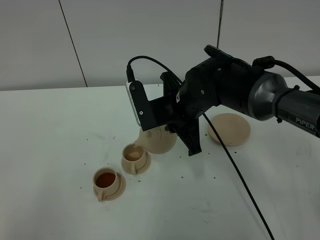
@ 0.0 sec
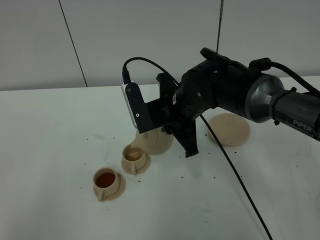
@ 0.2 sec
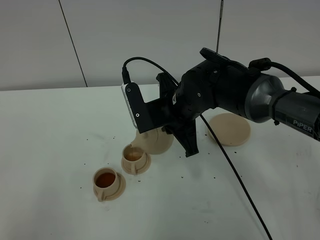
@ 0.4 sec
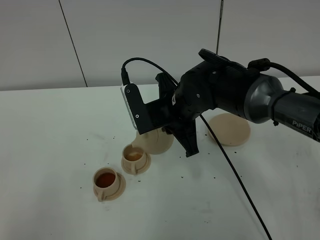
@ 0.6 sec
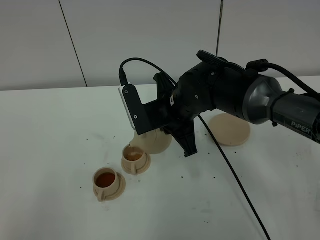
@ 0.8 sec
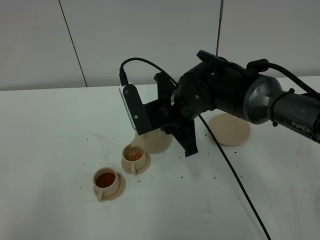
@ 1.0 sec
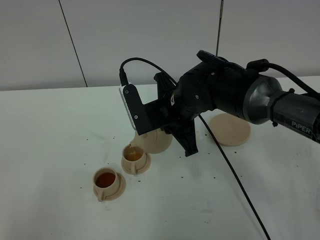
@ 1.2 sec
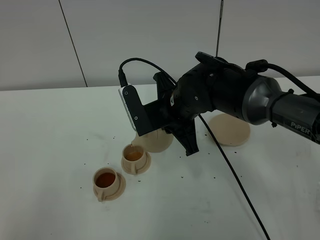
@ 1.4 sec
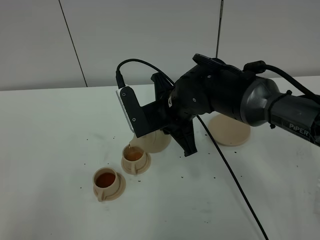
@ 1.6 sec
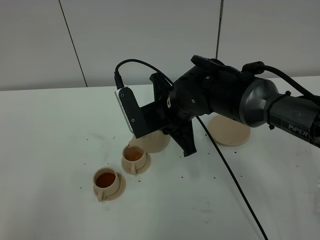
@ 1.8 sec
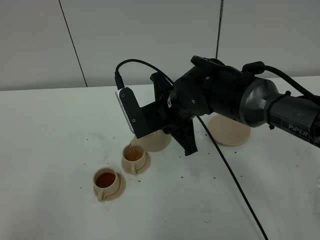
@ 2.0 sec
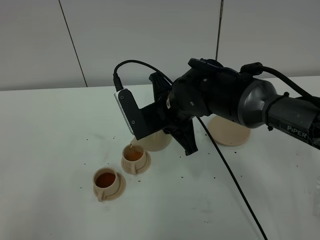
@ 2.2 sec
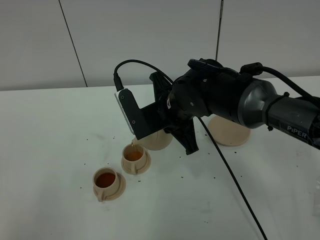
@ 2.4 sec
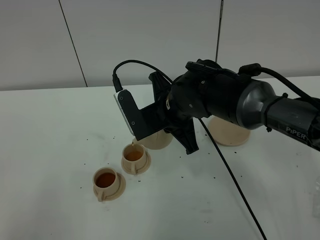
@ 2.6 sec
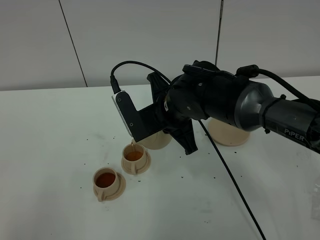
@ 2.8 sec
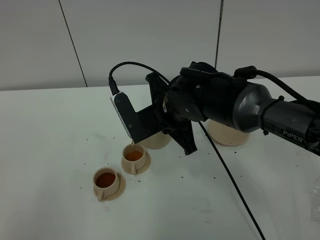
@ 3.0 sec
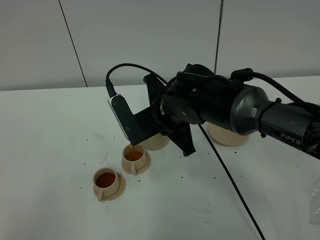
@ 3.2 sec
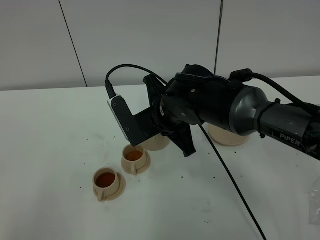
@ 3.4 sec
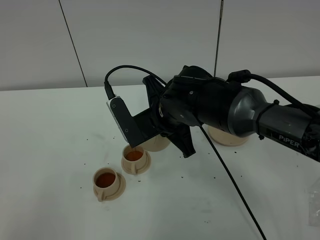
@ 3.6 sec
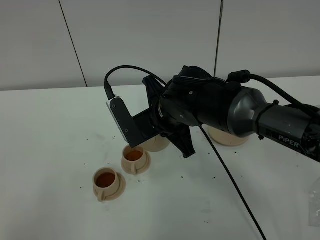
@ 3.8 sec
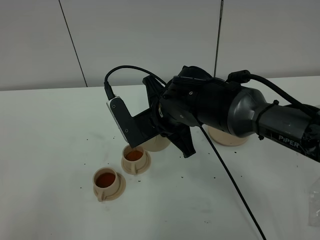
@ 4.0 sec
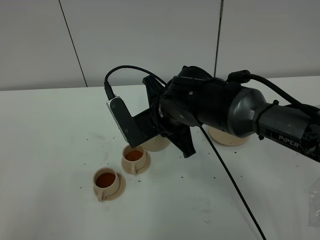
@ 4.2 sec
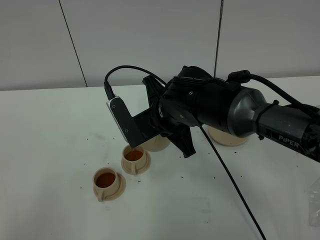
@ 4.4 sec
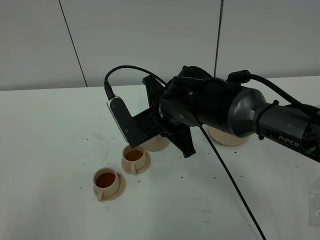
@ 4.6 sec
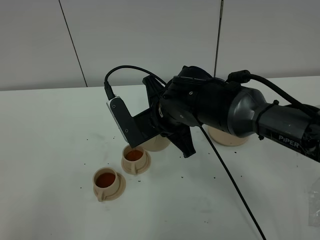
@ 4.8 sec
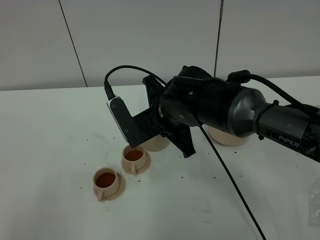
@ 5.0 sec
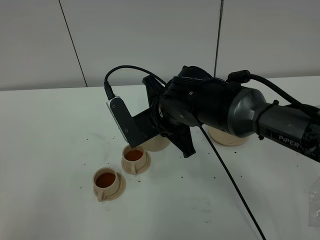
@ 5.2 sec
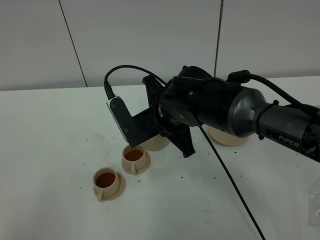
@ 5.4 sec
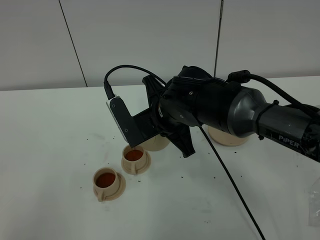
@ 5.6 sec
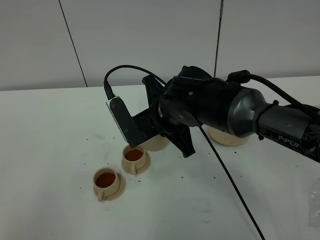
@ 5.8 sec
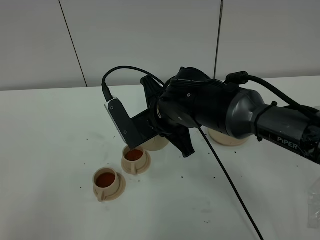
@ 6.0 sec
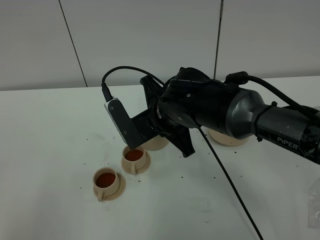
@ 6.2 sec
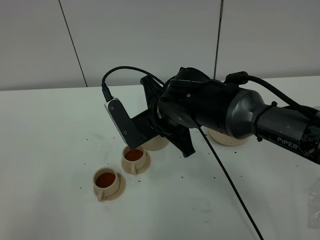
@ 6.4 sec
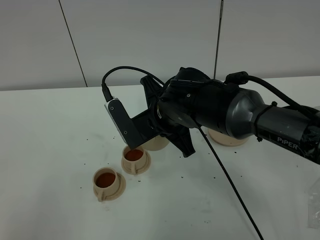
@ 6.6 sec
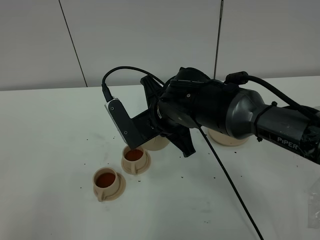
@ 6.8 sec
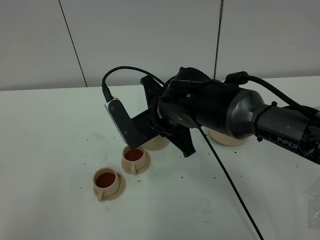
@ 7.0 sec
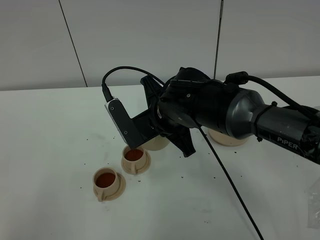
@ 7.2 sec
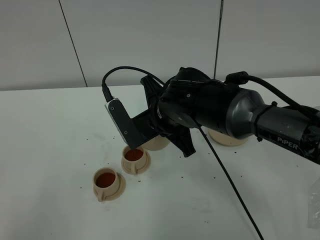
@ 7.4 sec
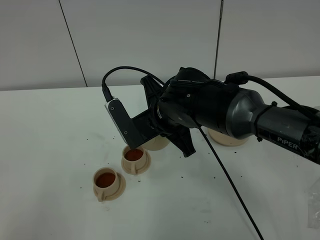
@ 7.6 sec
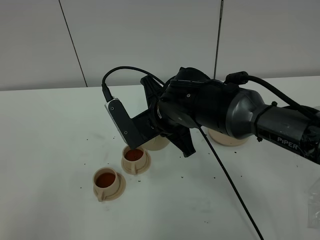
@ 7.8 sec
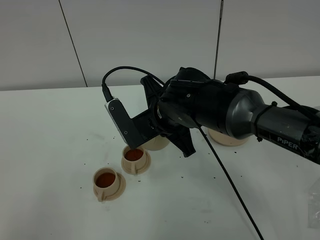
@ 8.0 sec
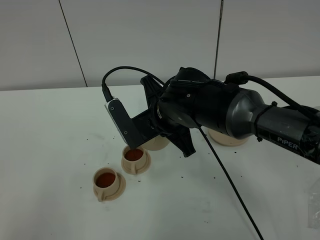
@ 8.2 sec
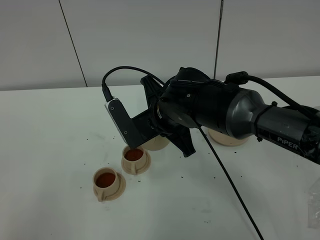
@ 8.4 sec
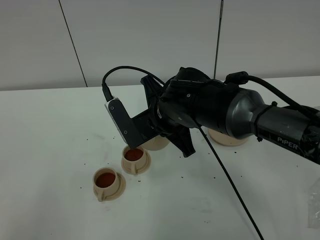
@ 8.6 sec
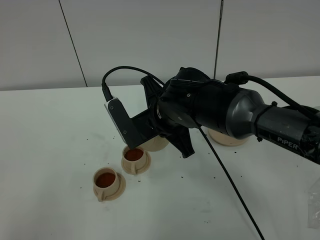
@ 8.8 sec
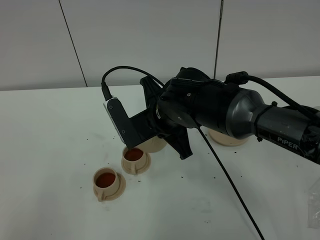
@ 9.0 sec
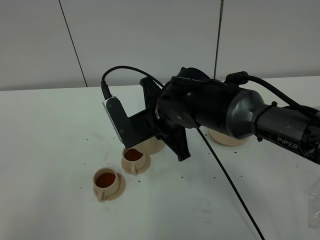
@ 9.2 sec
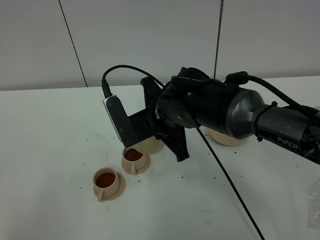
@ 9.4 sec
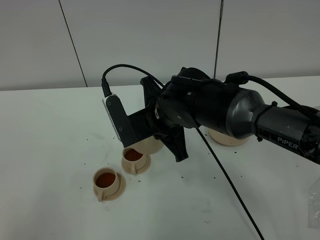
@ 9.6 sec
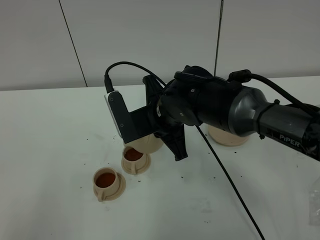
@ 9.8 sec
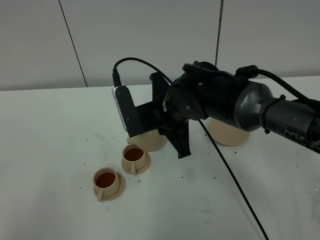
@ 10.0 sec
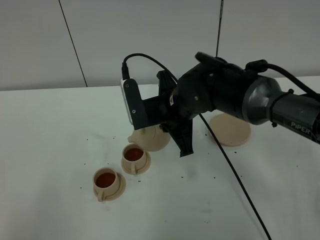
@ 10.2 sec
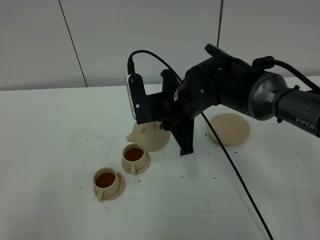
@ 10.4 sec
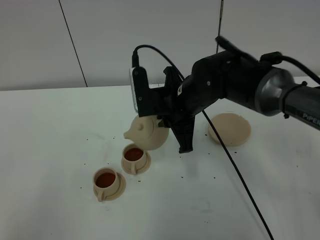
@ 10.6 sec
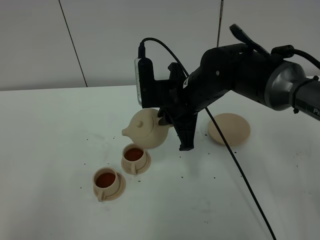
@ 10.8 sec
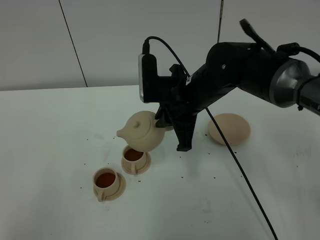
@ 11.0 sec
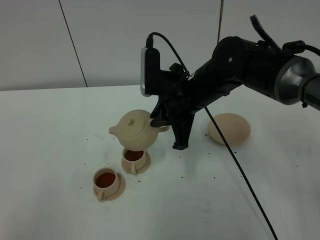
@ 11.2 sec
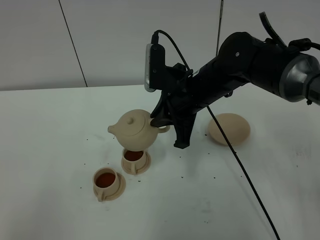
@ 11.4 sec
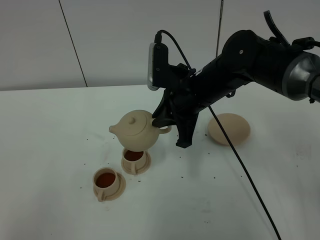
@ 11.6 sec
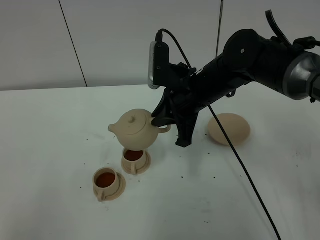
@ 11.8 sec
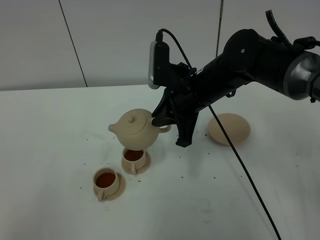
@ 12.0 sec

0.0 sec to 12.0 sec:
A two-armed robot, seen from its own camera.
Task of the whole recording: grasp the brown teapot and pour the tea into the two brown teacups one by one, put the brown teapot back in its original place.
Step, 0.0 sec to 9.2 sec: Pour tea into the teacup with the right gripper.
0.0 sec to 3.0 sec: The grippers stay close to where they were, moving slightly.
3.0 sec to 9.0 sec: Both grippers stay about where they are.
9.0 sec to 10.4 sec: The grippers make only small movements.

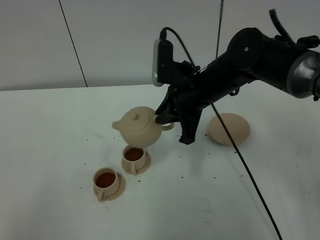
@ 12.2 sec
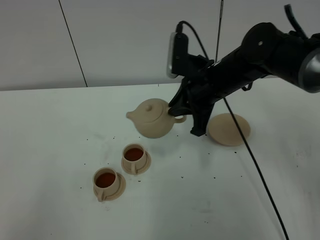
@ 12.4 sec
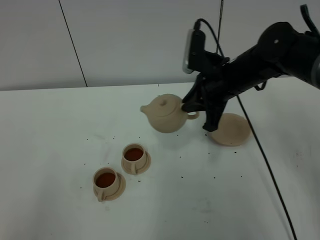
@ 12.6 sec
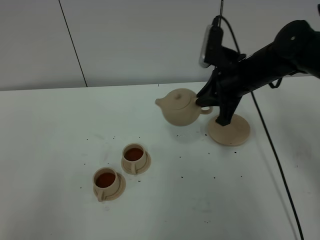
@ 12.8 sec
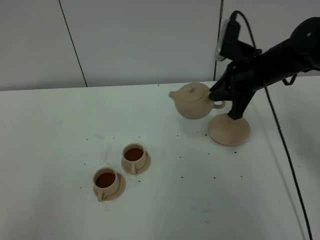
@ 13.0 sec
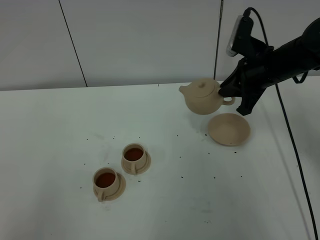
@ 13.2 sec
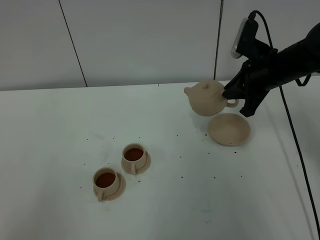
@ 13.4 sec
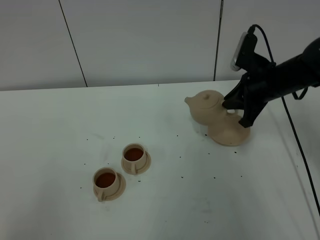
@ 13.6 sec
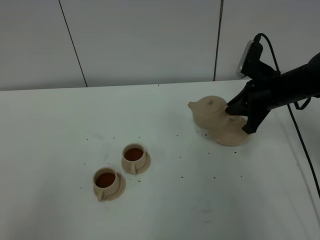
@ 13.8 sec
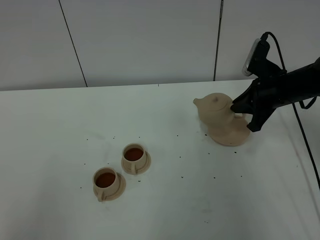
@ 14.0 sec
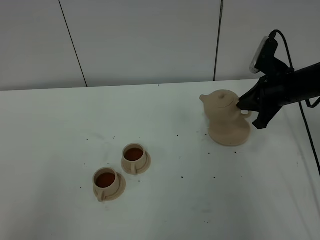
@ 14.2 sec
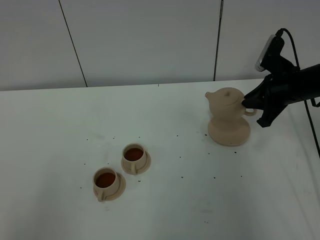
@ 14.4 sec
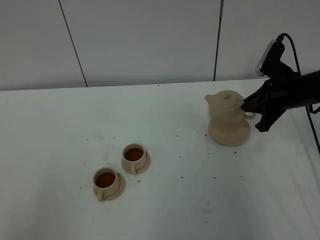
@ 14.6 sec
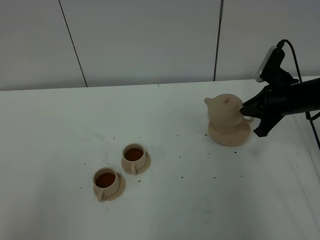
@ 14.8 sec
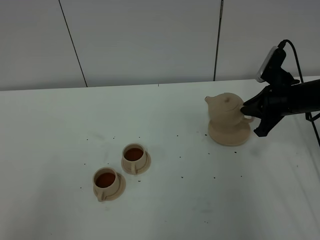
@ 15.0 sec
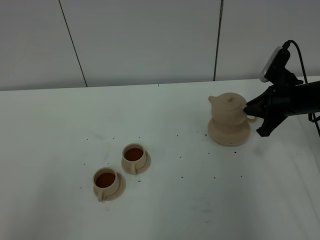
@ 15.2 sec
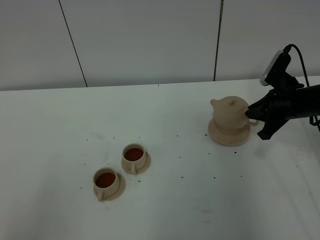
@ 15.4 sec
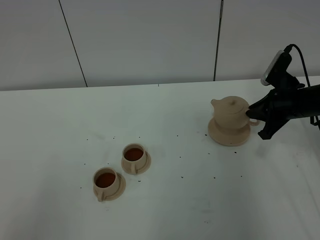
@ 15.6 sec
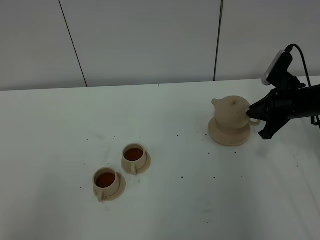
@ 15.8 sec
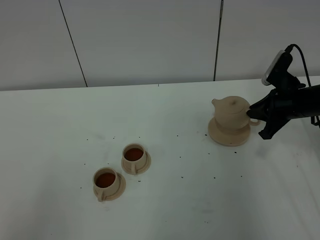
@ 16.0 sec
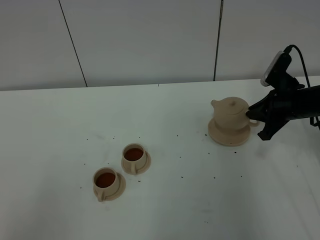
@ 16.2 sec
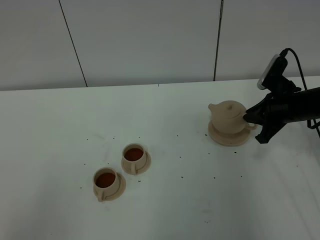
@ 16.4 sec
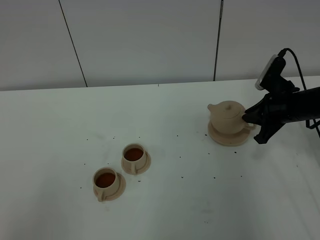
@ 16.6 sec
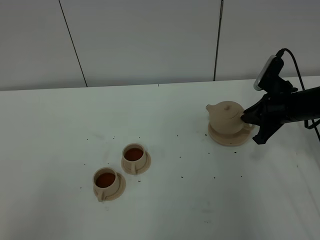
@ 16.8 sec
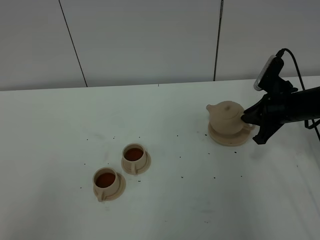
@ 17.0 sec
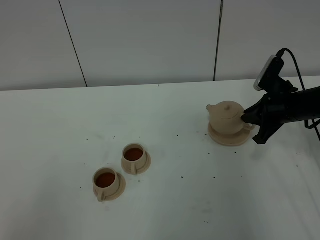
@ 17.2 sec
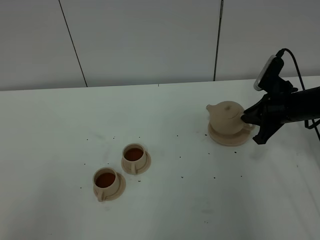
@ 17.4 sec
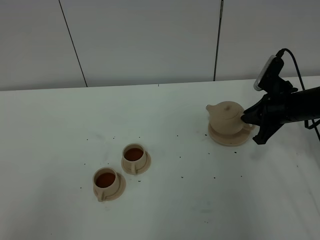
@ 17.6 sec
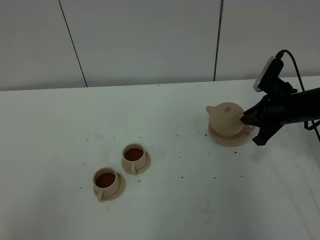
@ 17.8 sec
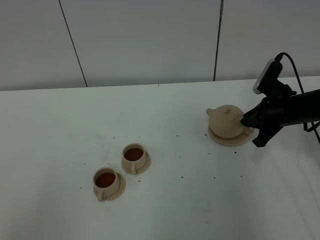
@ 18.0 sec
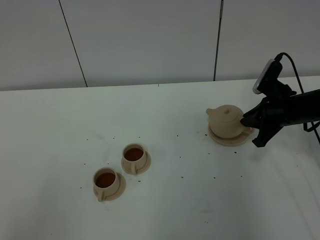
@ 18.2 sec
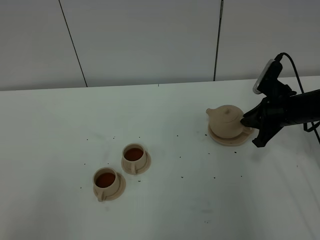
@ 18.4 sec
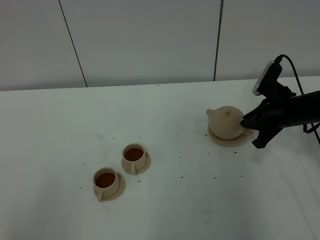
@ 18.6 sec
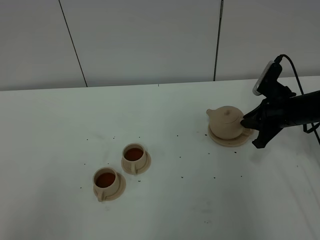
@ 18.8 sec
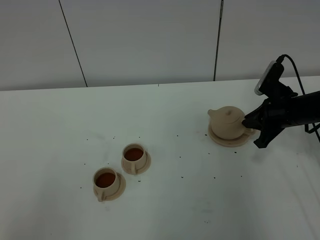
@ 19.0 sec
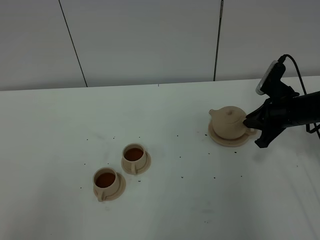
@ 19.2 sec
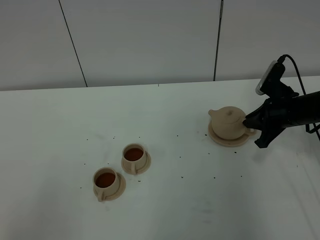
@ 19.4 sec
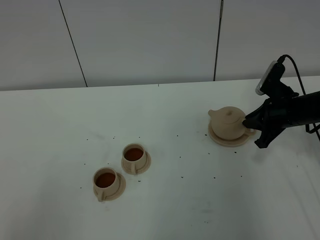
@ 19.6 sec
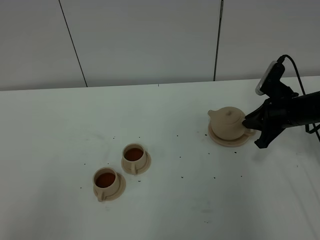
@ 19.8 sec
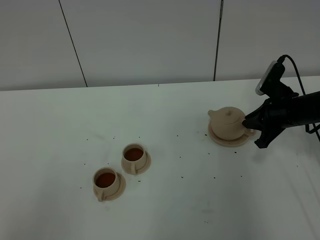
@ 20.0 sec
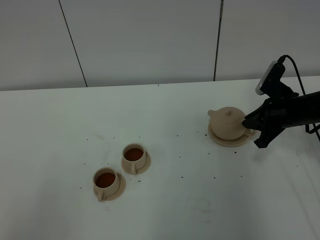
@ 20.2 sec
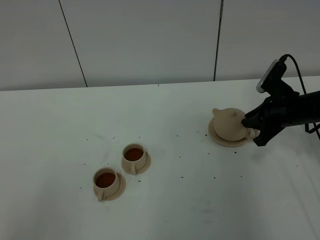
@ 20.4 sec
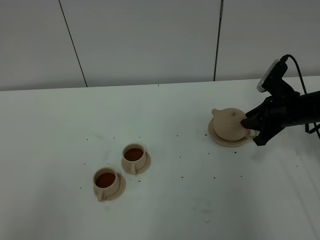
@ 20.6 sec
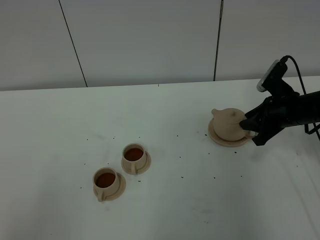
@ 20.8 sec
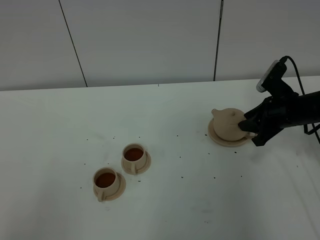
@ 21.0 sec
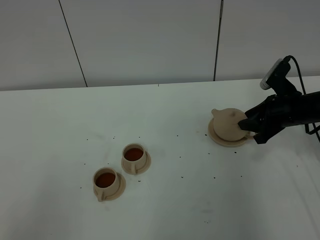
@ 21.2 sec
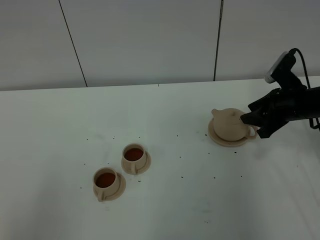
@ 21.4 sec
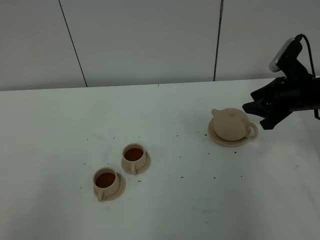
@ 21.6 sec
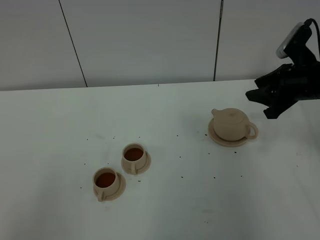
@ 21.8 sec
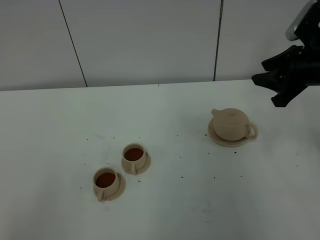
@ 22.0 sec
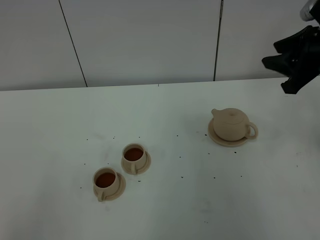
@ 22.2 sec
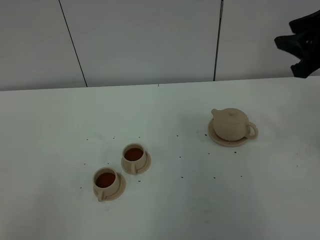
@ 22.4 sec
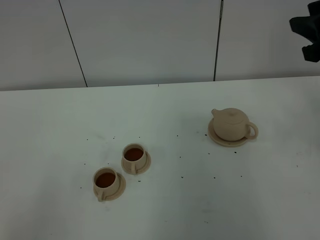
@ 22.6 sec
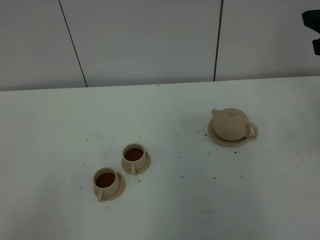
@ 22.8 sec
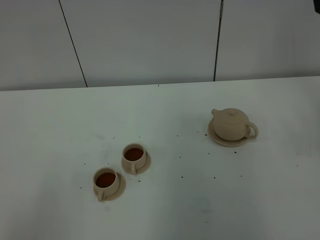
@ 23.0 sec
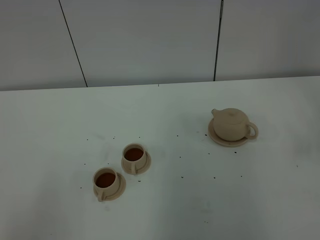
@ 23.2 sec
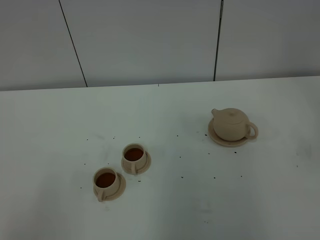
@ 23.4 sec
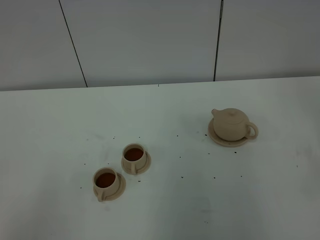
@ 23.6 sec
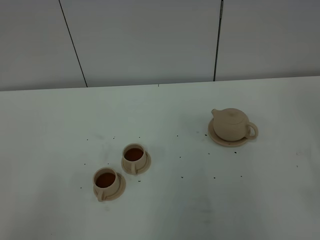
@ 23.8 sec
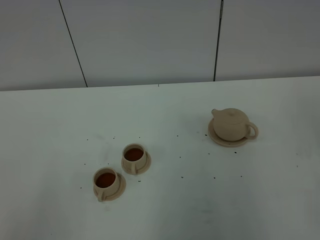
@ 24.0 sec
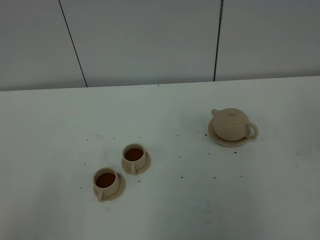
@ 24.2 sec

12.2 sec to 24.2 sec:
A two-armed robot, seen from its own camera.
Task of the whole recording: grasp the brown teapot and pour the tea into the two brown teacups one by one, put the brown teapot back in its original place.
12.2 sec to 13.8 sec: The right gripper shifts approximately 15 cm to the right and downward.
13.8 sec to 15.2 sec: The right gripper shifts by some 5 cm.
15.2 sec to 16.6 sec: Both grippers stay put.
16.6 sec to 19.8 sec: Both grippers stay put.
19.8 sec to 21.2 sec: The right gripper opens its fingers.
21.2 sec to 22.6 sec: The right gripper is displaced upward and backward by roughly 25 cm.
22.6 sec to 24.2 sec: The right gripper goes about 25 cm backward.
